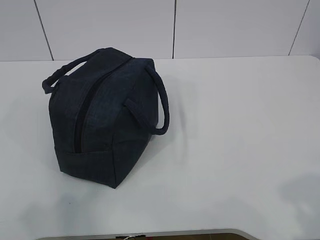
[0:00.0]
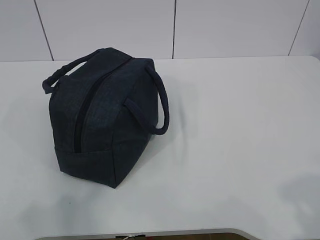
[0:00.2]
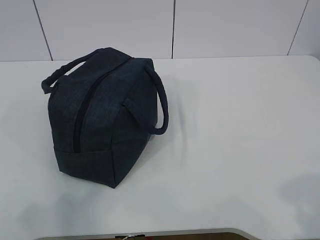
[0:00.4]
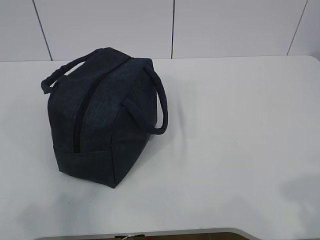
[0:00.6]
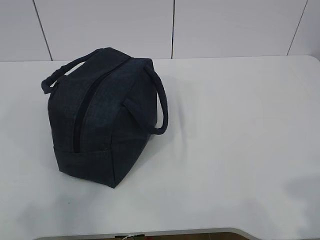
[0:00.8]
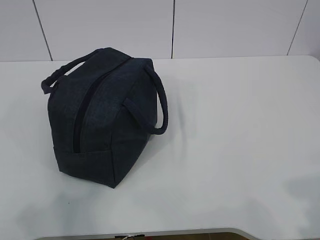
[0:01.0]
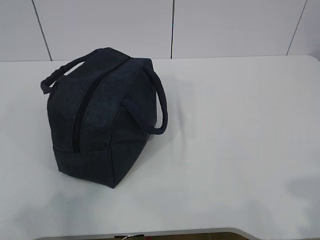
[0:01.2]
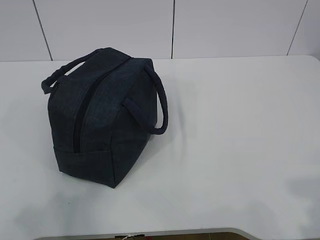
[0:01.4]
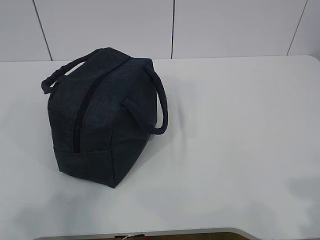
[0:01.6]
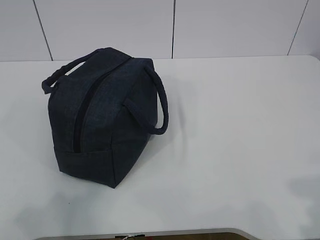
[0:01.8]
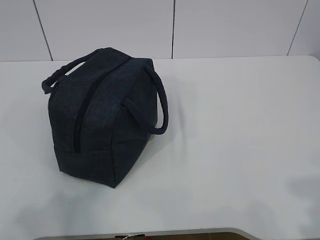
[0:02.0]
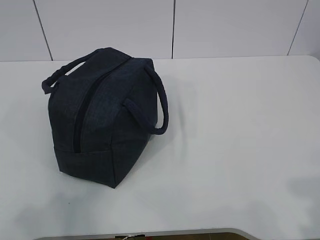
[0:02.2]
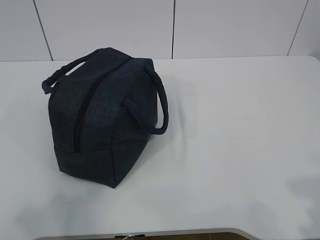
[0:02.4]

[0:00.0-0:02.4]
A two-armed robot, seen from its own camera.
0:00.0 to 0:01.2: There are only small adjustments of the grippers.
0:01.2 to 0:02.4: Both grippers stay about where they are.
